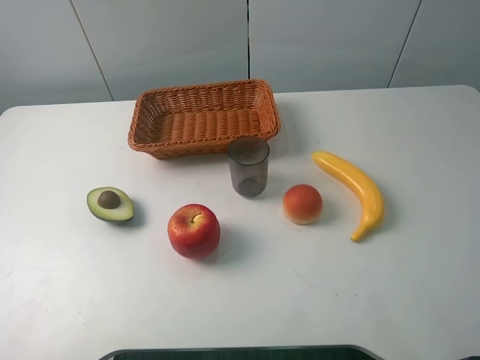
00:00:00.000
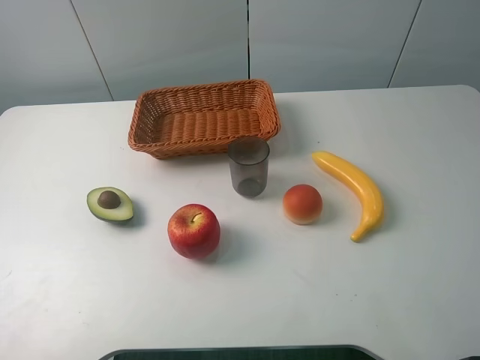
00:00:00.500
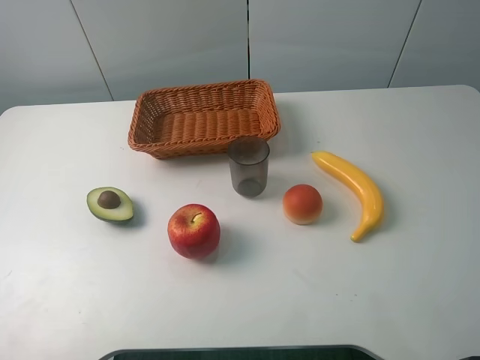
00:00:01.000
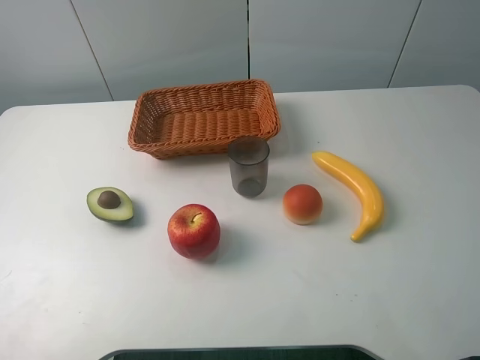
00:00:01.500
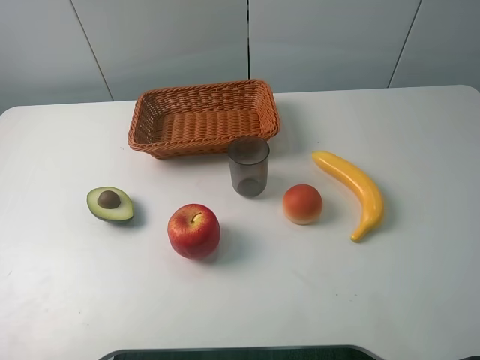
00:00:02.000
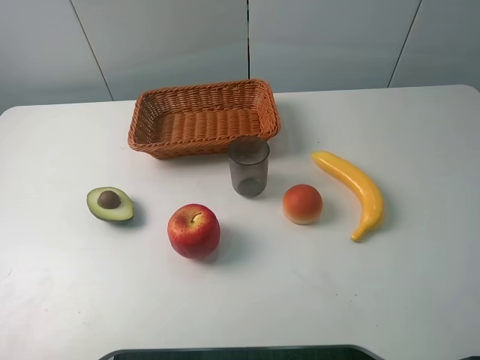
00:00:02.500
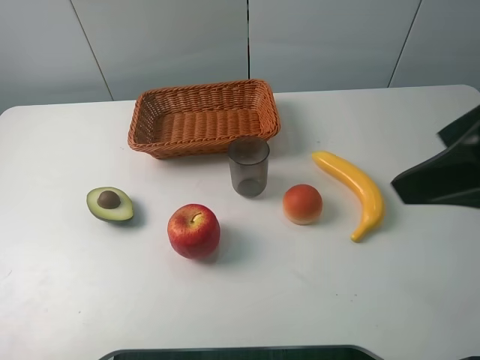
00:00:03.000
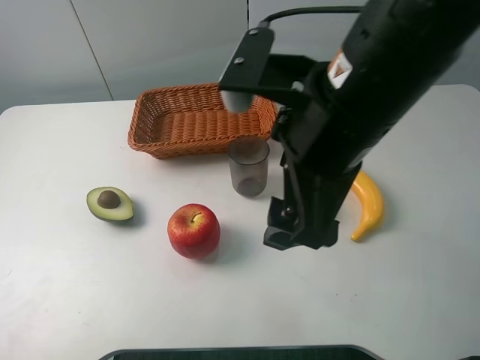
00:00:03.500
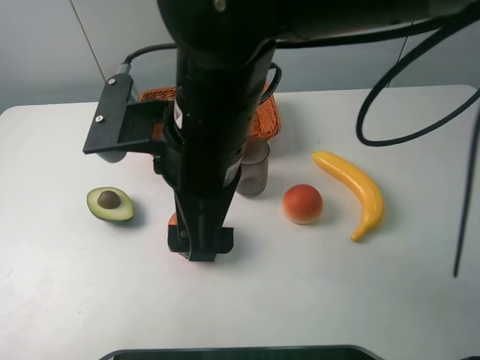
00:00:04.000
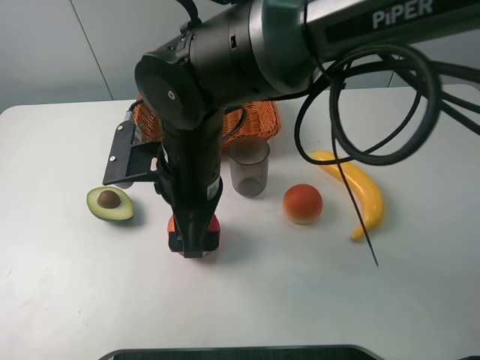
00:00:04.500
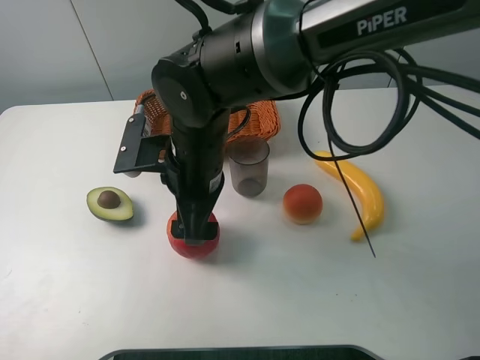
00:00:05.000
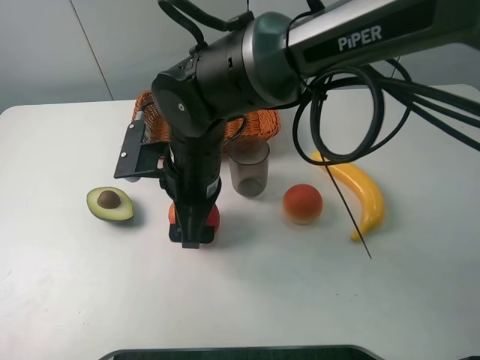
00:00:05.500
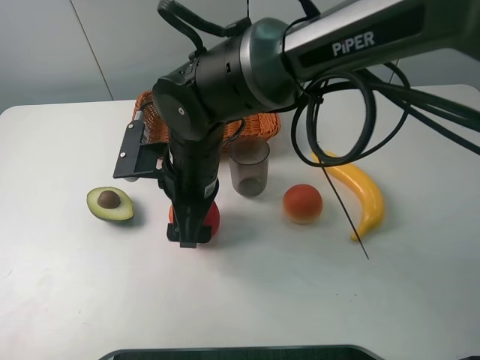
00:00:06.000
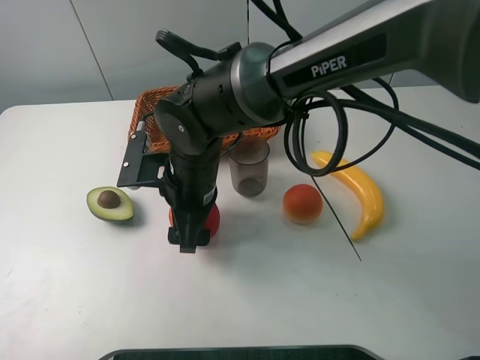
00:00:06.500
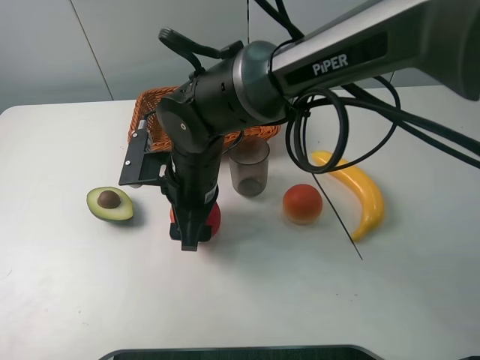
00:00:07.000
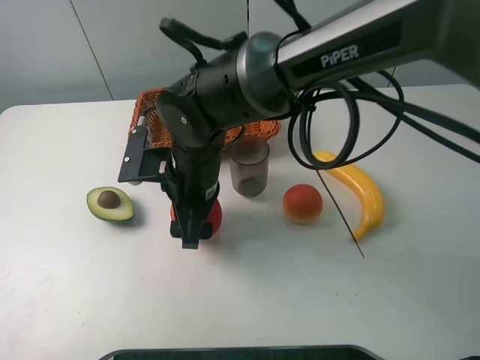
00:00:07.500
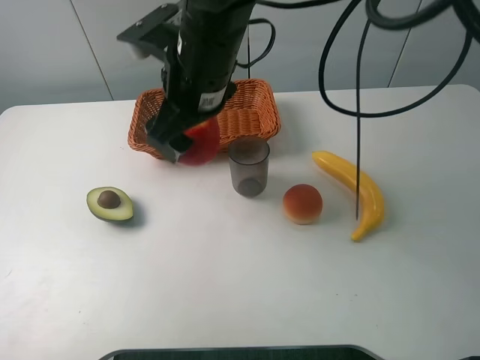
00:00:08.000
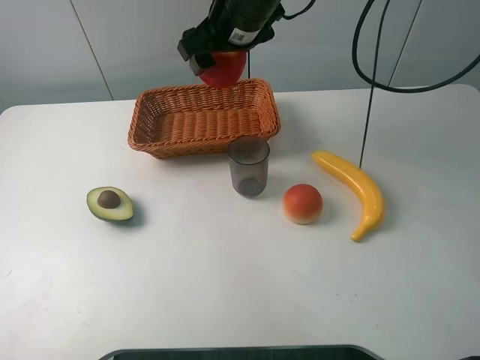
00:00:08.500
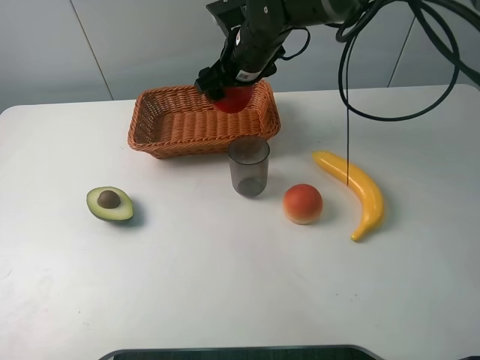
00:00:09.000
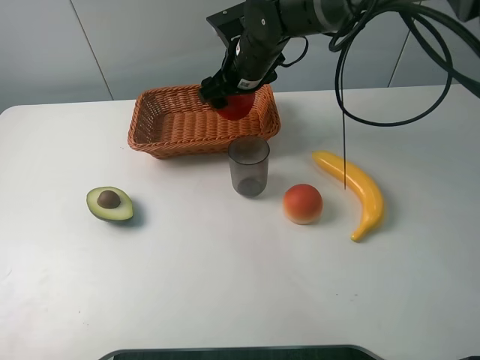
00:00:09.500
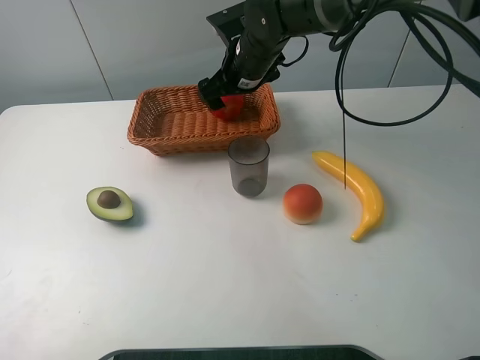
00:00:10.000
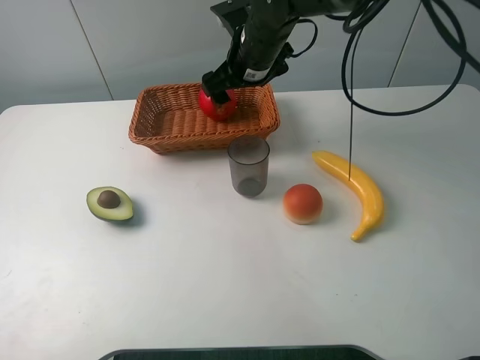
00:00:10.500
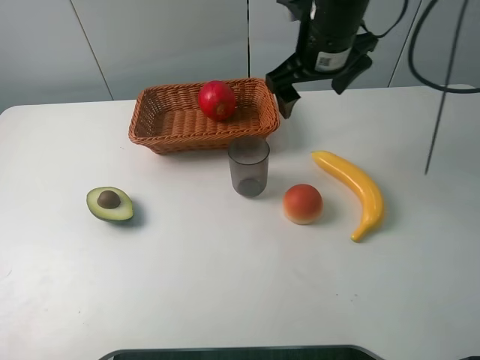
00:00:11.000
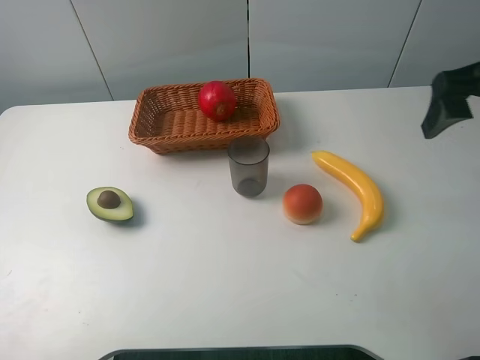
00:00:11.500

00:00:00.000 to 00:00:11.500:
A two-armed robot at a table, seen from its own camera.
Task of the whole recording: randomly pick up an item from the table and put it in the basket.
Step, 00:00:00.000 to 00:00:07.000: Grasp the apple with the right gripper.
Step, 00:00:07.500 to 00:00:10.500: Place the apple into the basket with the right gripper.
00:00:00.000 to 00:00:02.000: Both grippers stay put.
00:00:02.000 to 00:00:04.000: The right gripper travels to the left and forward by some 35 cm.
00:00:04.000 to 00:00:06.000: The right gripper is displaced downward and forward by some 10 cm.
00:00:06.000 to 00:00:07.500: The right gripper closes its fingers.
00:00:07.500 to 00:00:09.500: The right gripper shifts some 20 cm forward and to the right.
00:00:09.500 to 00:00:11.500: The right gripper goes roughly 35 cm to the right, backward and upward, and opens up.

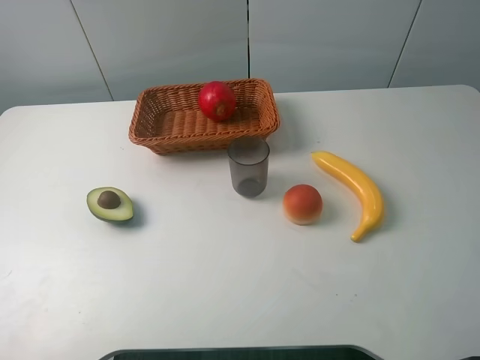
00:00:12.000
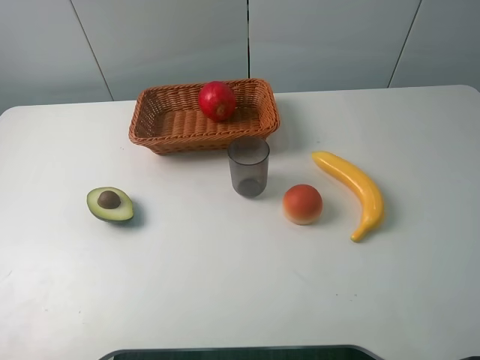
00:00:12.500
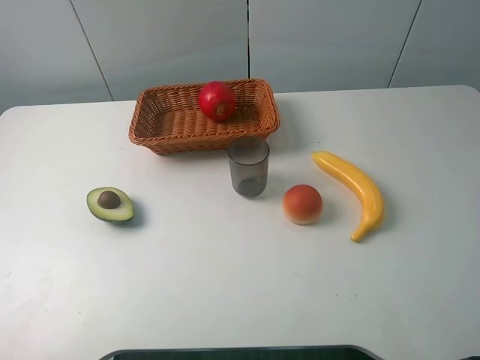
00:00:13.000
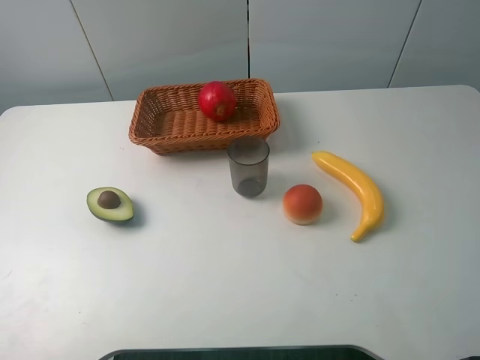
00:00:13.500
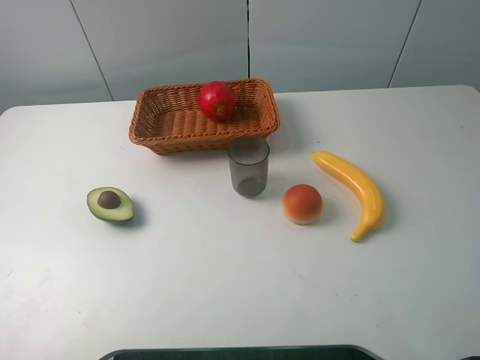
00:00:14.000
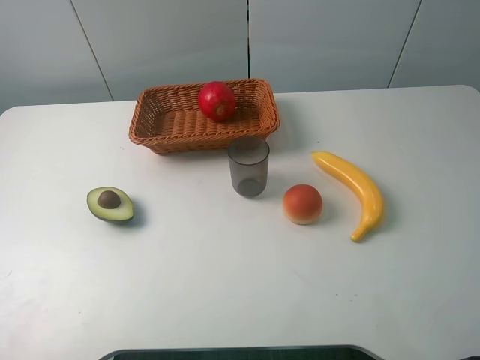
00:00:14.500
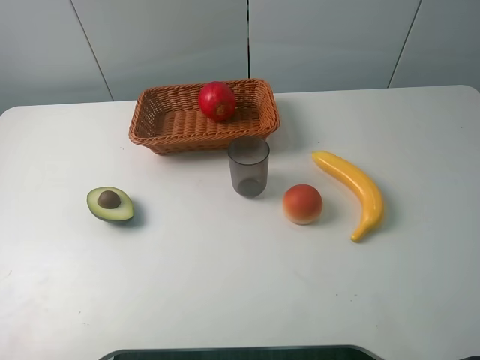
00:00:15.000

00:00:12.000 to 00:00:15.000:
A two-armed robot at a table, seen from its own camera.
Task of the whole recording: randomly pick up an item from the table and put it in the basket.
00:00:13.500 to 00:00:15.000: Both grippers stay about where they are.

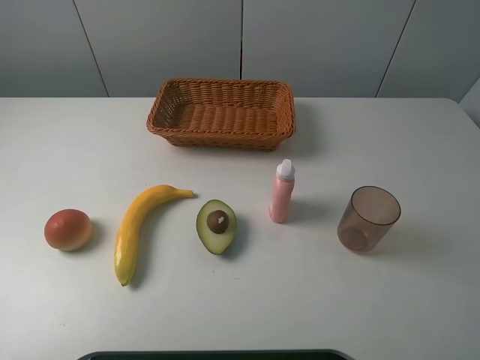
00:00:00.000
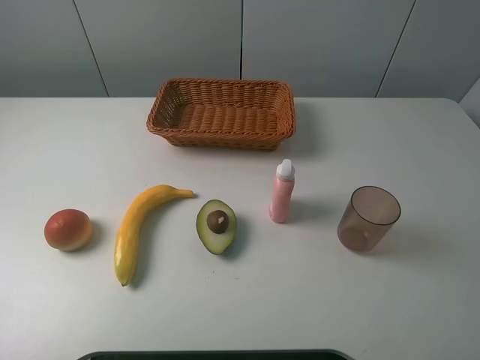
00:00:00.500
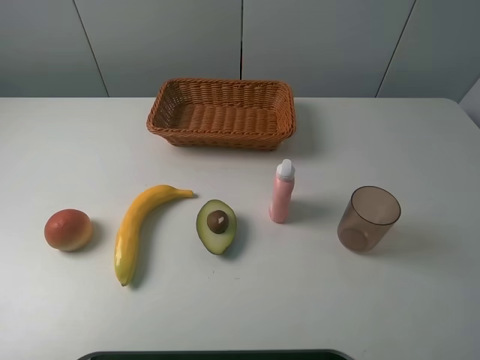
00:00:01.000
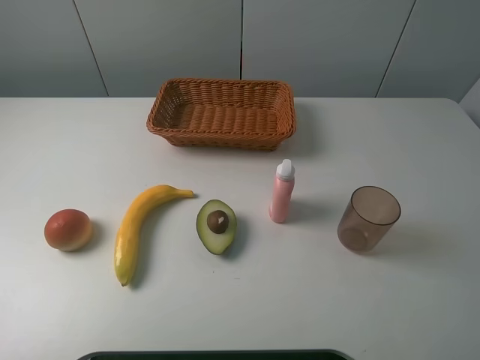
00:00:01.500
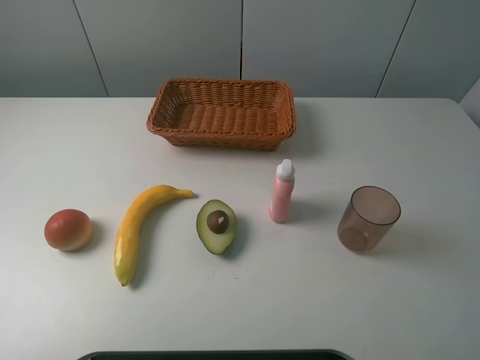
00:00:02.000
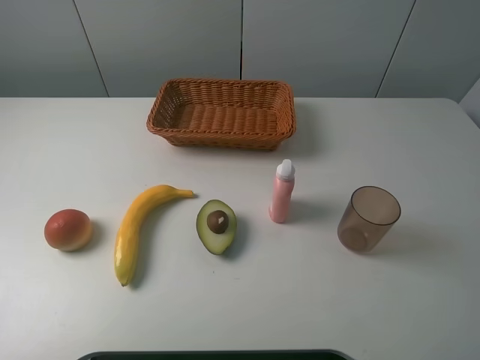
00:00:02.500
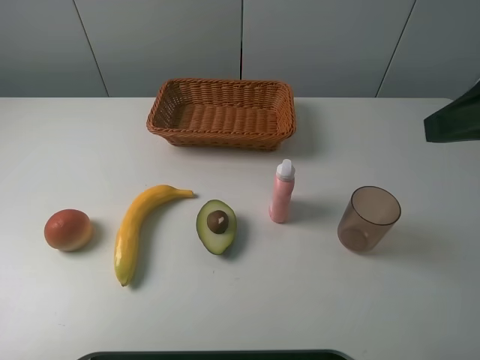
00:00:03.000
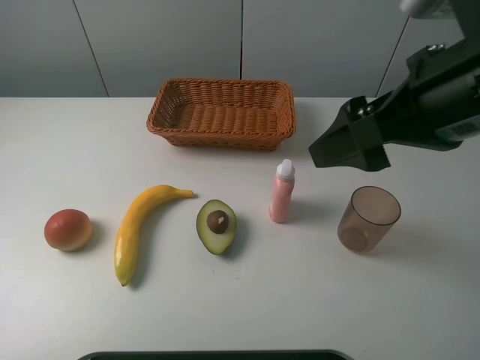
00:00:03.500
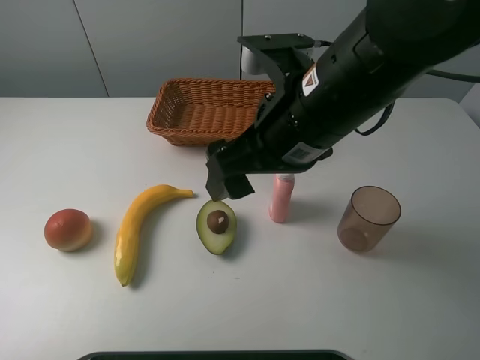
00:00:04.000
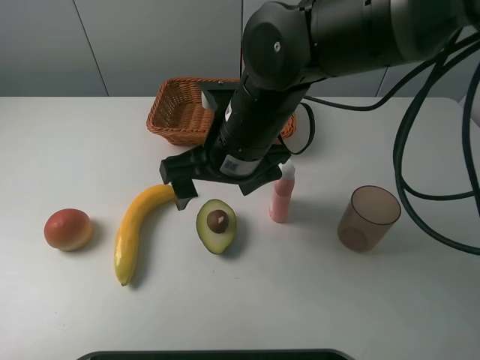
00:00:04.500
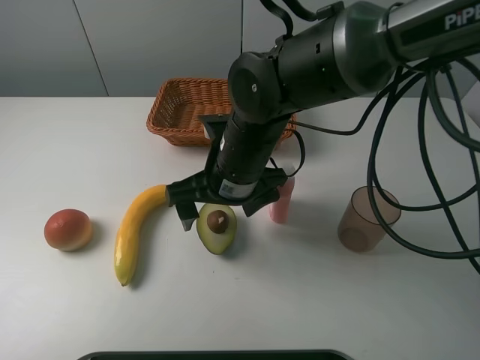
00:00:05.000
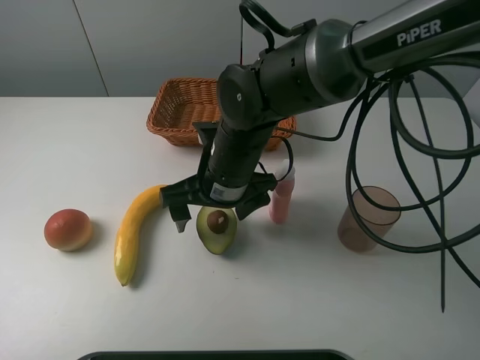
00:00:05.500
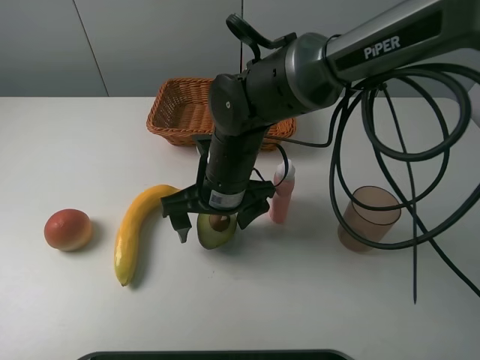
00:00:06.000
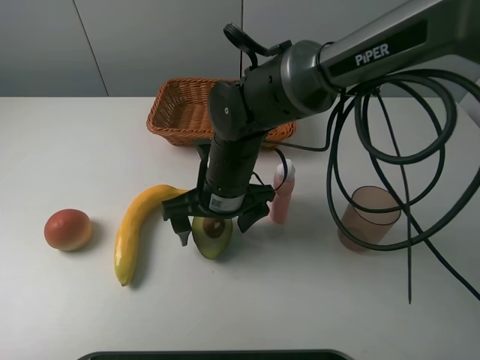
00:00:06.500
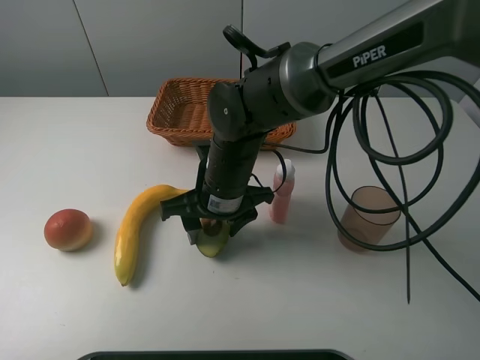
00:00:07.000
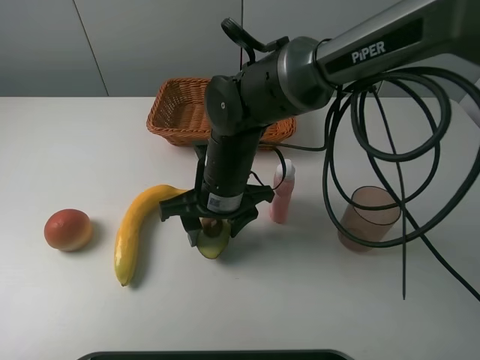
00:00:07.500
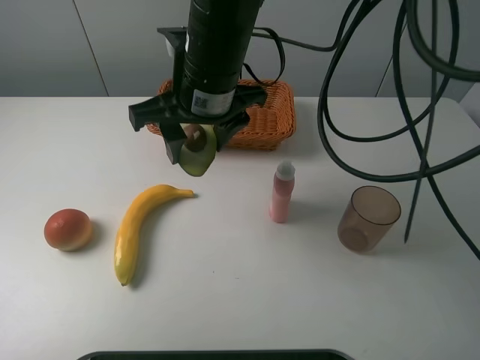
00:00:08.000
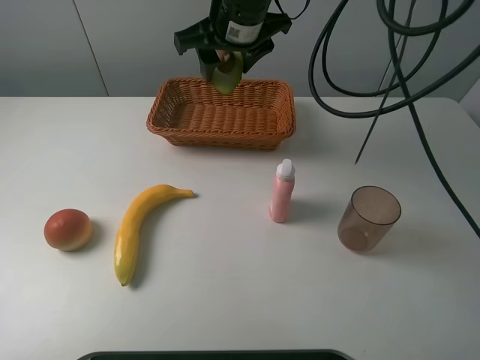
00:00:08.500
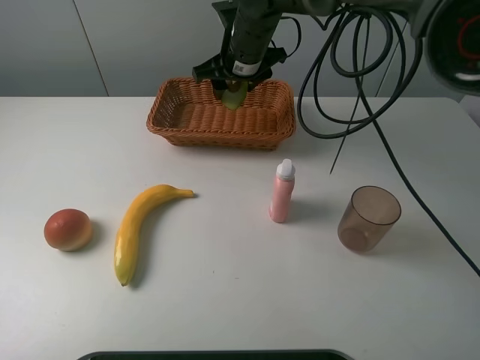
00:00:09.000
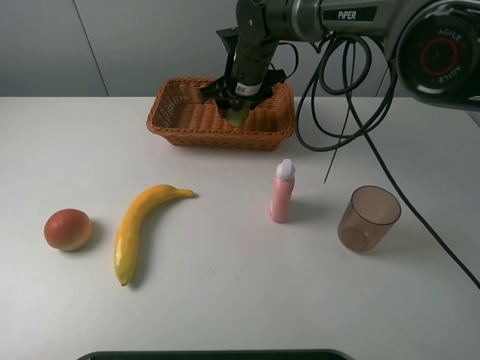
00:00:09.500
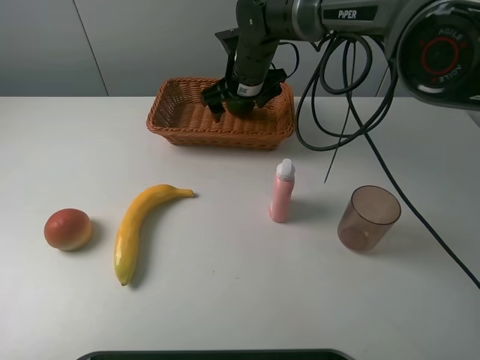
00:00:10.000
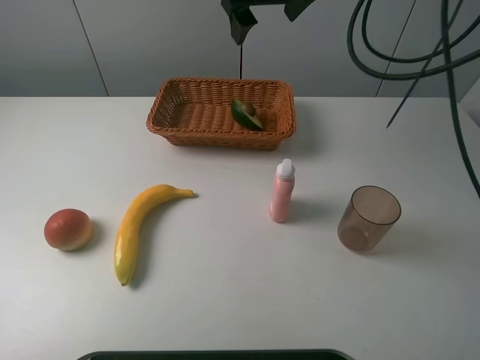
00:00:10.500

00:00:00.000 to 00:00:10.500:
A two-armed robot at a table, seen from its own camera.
Task of the whole recording: randomly pick up an item from the table and put it in the basket.
Step, 00:00:00.000 to 00:00:07.000: Grasp the avocado with the right gripper.
Step, 00:00:07.500 to 00:00:10.000: Place the avocado into the basket with the right gripper.
00:00:00.000 to 00:00:02.000: Both grippers stay about where they are.
00:00:02.000 to 00:00:04.000: The right gripper moves to the left and forward, some 30 cm.
00:00:04.000 to 00:00:06.500: The right gripper moves downward and to the left, roughly 15 cm.
00:00:06.500 to 00:00:08.500: The right gripper is displaced upward and forward by roughly 20 cm, and closes up.
00:00:08.500 to 00:00:10.500: The right gripper travels upward and to the right by about 10 cm, and opens.
